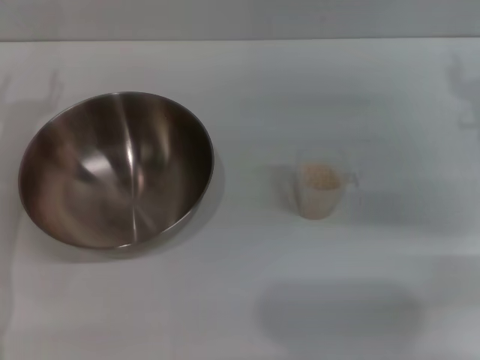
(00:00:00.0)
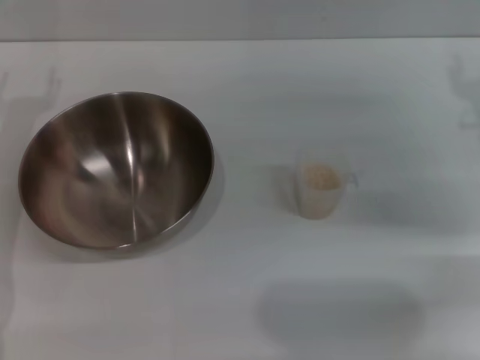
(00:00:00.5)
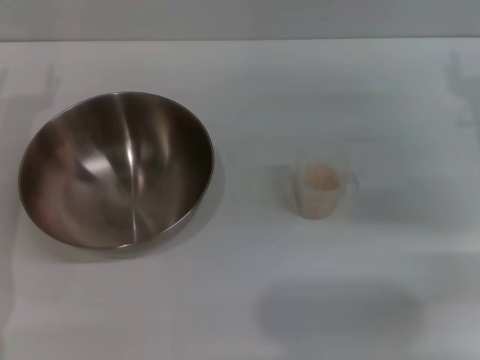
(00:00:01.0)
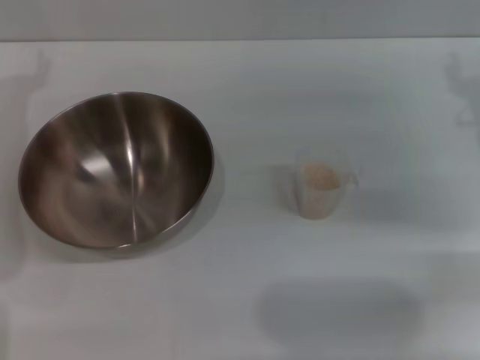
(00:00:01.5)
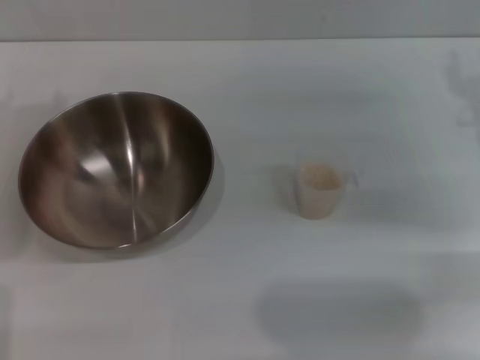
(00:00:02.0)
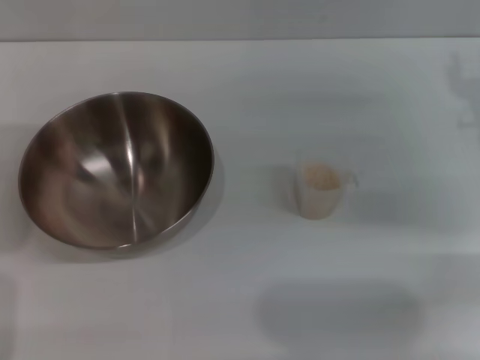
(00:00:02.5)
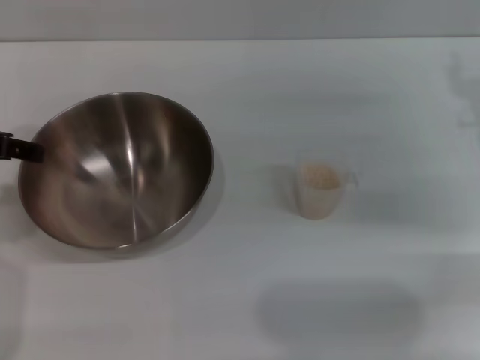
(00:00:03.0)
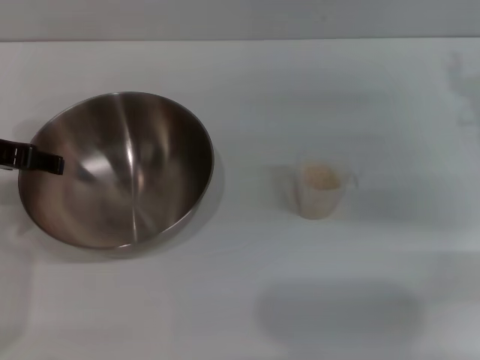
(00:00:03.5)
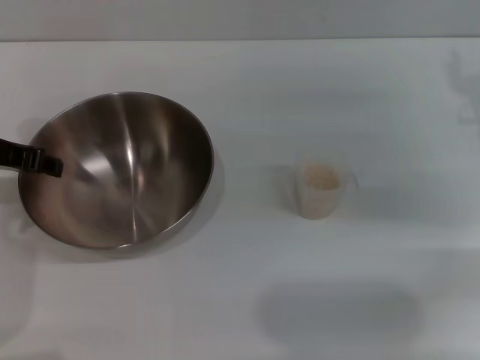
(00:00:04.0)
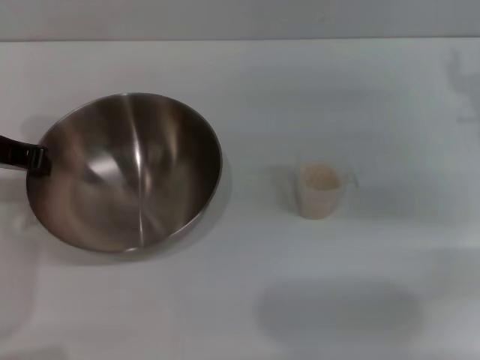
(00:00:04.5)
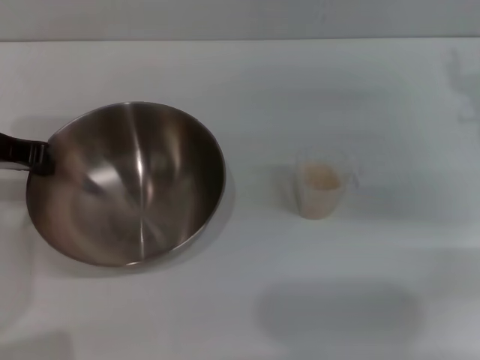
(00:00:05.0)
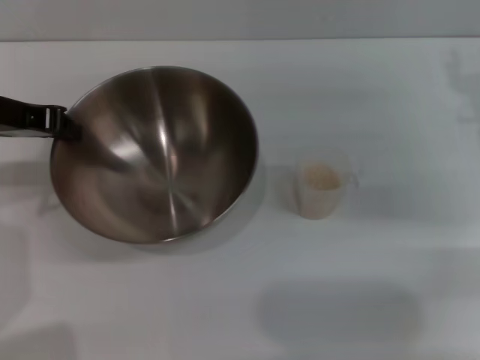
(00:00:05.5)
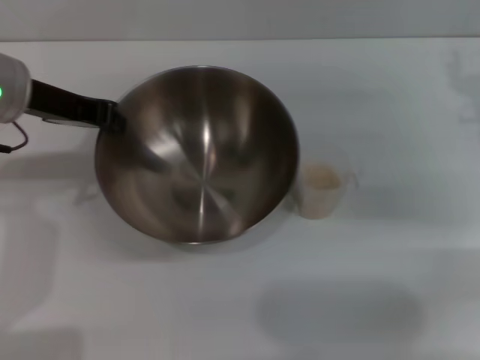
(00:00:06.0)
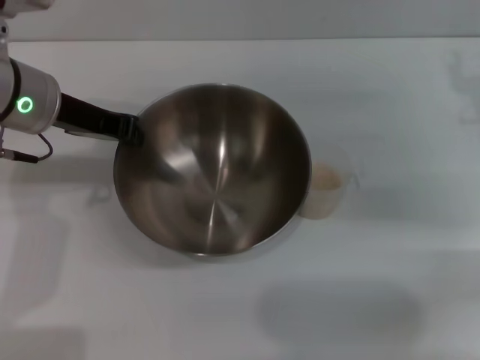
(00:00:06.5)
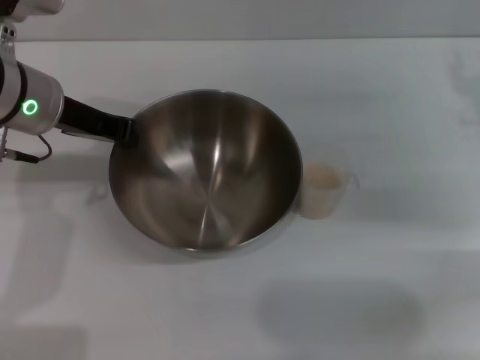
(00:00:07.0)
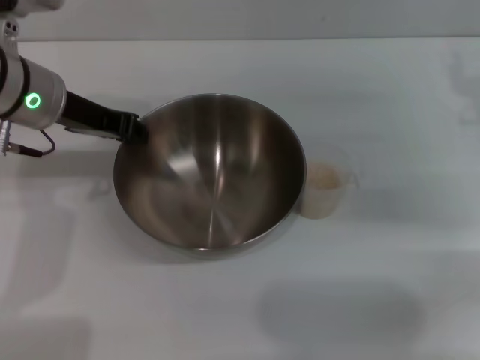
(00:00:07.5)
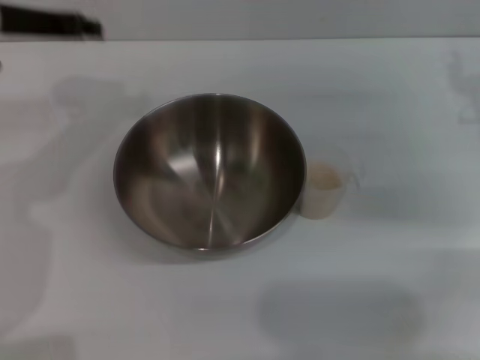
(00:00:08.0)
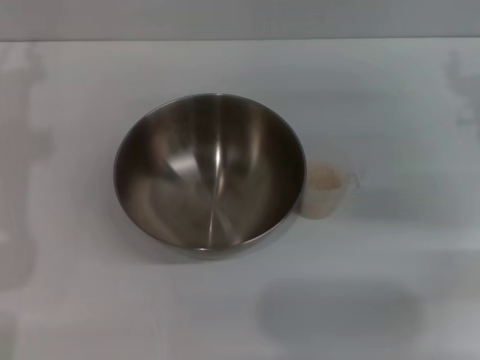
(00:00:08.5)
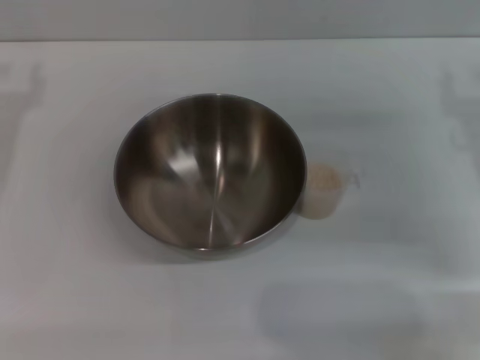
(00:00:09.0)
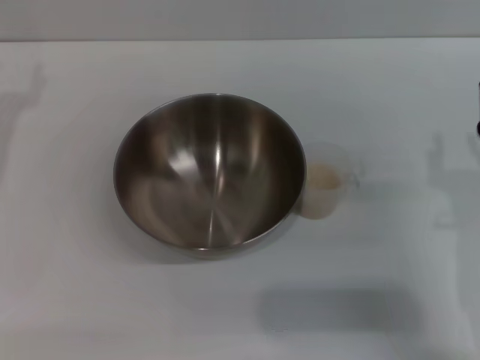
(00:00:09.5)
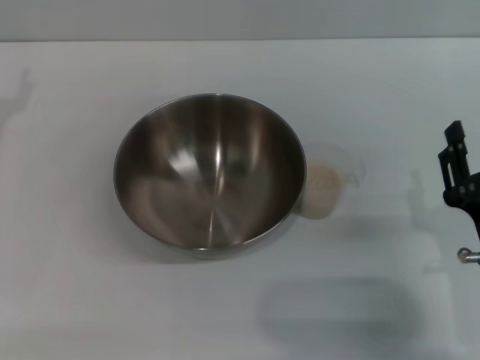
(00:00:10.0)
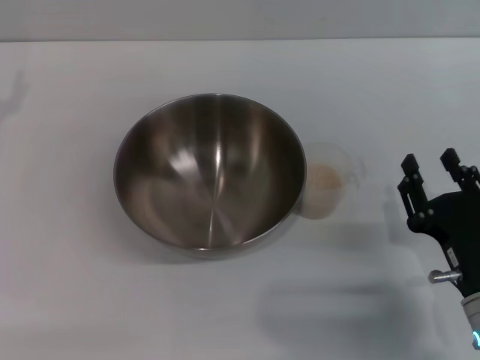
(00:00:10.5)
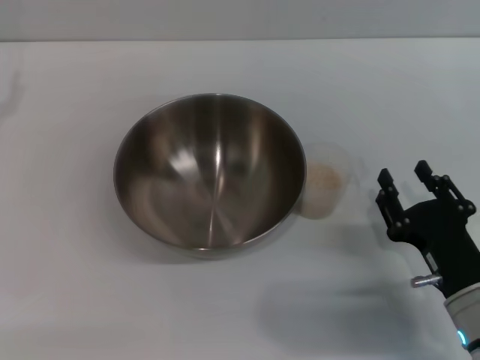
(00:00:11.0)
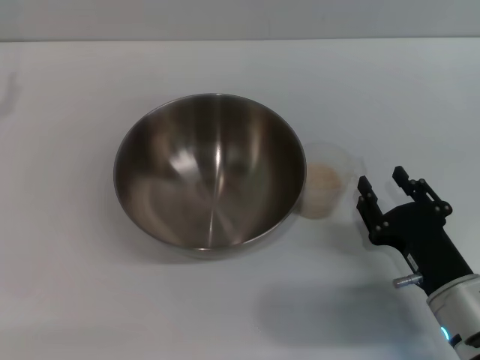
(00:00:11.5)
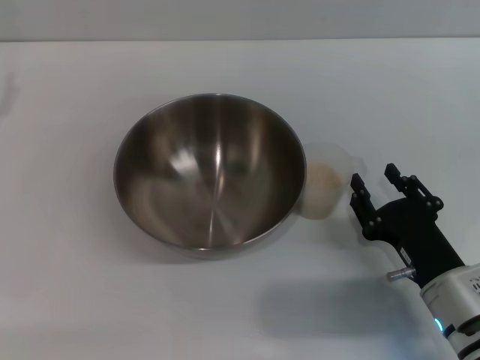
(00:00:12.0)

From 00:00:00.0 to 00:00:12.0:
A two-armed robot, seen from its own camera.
Task of the whole recording: Place the bowl in the middle of the table with one hand and pour the rice from the grain cup into it with the other hand.
Step, from 00:00:00.0 to 00:00:05.5: Pick up the bowl with the left gripper.
Step, from 00:00:06.0 to 00:00:07.5: Place the bowl in the center of view with the left gripper.
From 00:00:02.0 to 00:00:04.0: The left gripper shifts about 10 cm downward.
From 00:00:04.0 to 00:00:06.0: The left gripper changes place by approximately 5 cm, and closes up.
From 00:00:06.0 to 00:00:08.0: The left gripper opens.
From 00:00:08.0 to 00:00:10.0: The left gripper travels to the left, downward and backward by approximately 15 cm, and opens its fingers. The right gripper goes approximately 20 cm backward, downward and to the left.
From 00:00:10.0 to 00:00:12.0: The right gripper moves roughly 5 cm.

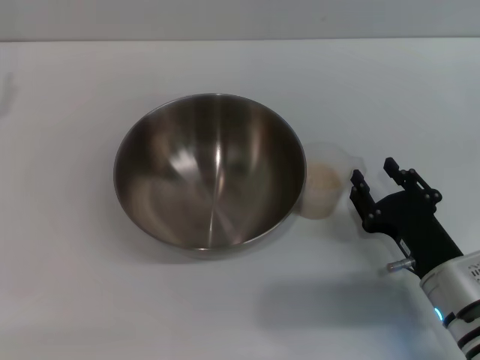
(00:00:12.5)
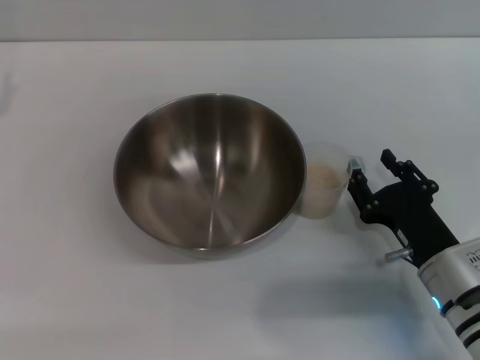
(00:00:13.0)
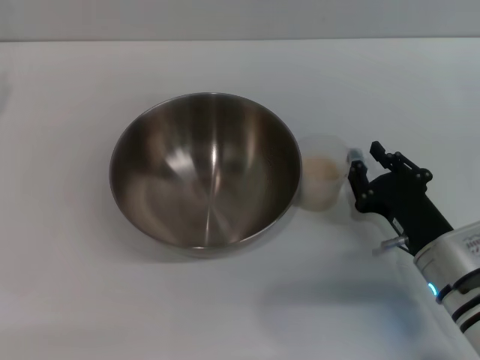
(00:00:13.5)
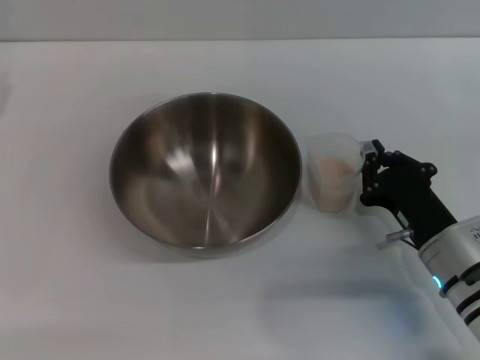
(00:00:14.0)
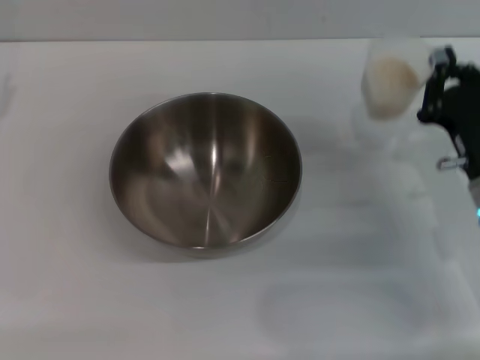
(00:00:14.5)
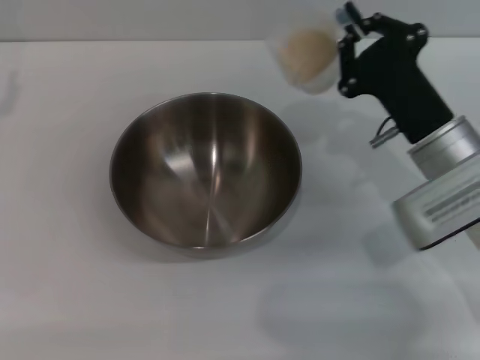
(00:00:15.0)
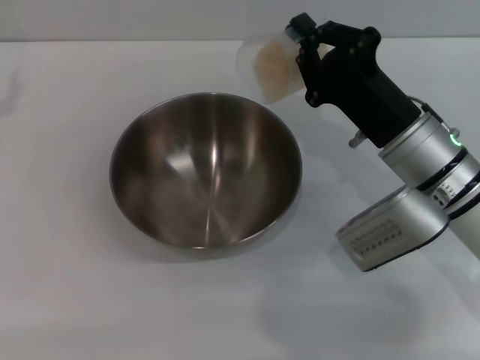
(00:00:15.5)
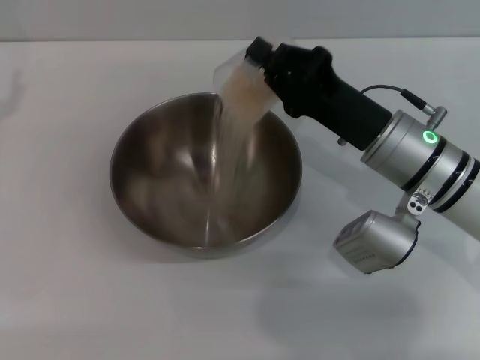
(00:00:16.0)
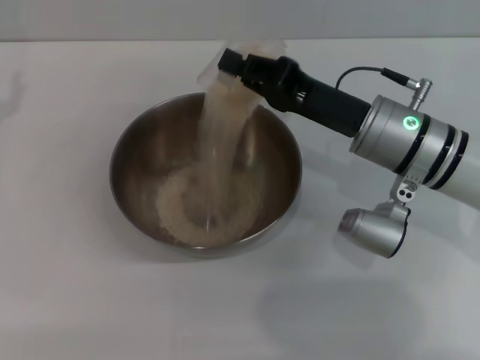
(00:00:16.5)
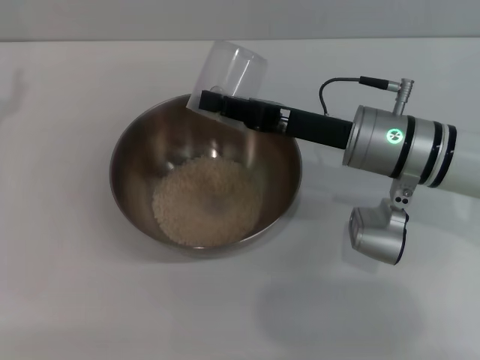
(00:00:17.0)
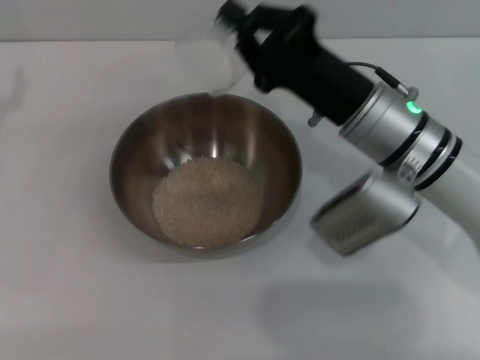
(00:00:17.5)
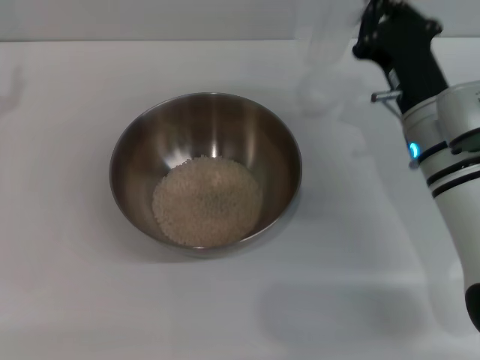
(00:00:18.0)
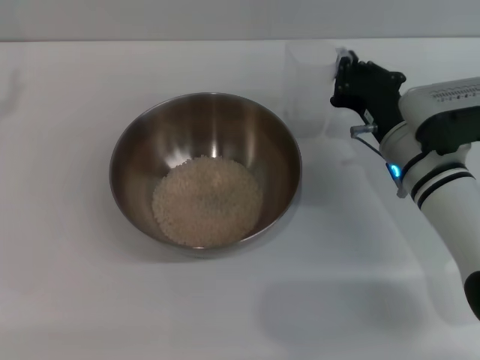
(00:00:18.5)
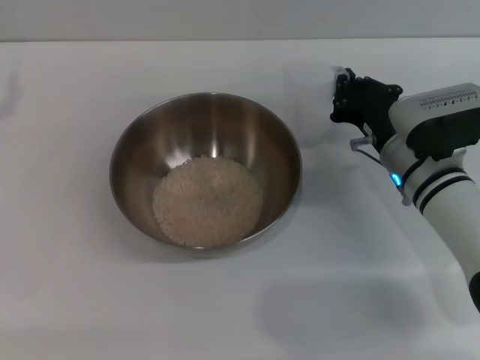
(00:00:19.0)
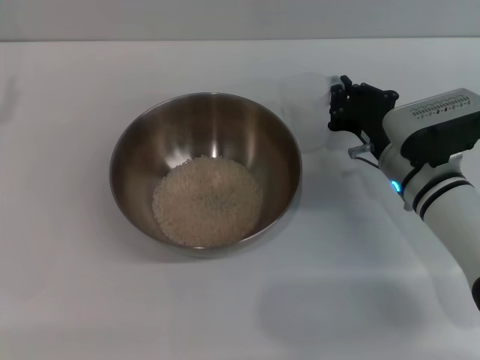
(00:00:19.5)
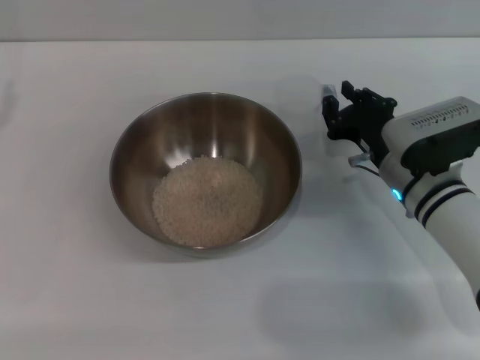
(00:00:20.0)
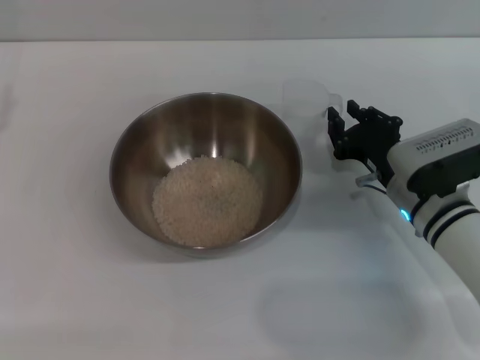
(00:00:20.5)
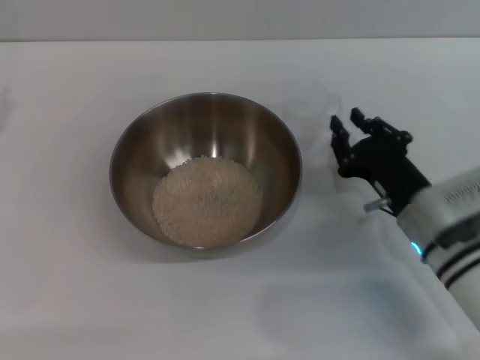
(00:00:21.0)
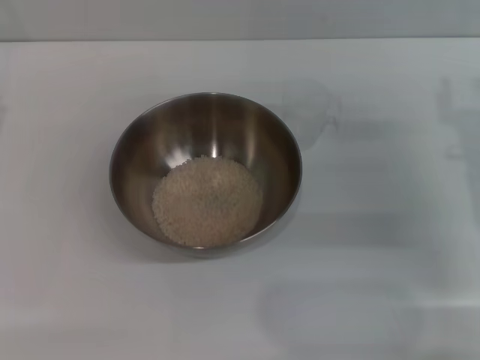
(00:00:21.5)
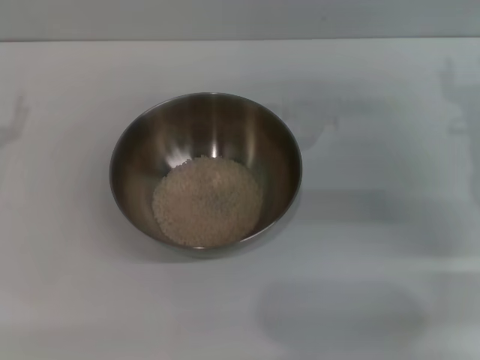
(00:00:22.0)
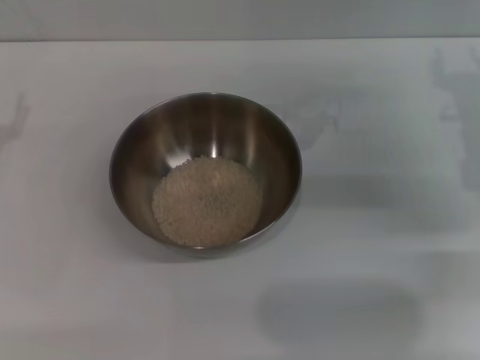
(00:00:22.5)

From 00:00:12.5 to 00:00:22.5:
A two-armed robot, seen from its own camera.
Task of the whole recording: Place the bowl in the middle of the table with one hand and pour the rice from the grain cup into it with the other hand.
Step, from 00:00:14.5 to 00:00:17.5: Pour the rice from the cup into the bowl with the right gripper.
Step, from 00:00:18.0 to 00:00:21.0: Place the cup on the table with the right gripper.
From 00:00:12.5 to 00:00:14.5: The right gripper travels forward and upward by some 10 cm, and closes up.
From 00:00:14.5 to 00:00:16.5: The right gripper moves to the left and forward, about 10 cm.
From 00:00:16.5 to 00:00:18.5: The right gripper changes place by about 5 cm.
From 00:00:18.5 to 00:00:20.5: The right gripper opens its fingers.
From 00:00:20.5 to 00:00:22.5: The right gripper moves upward and to the right, approximately 15 cm, and opens up.
